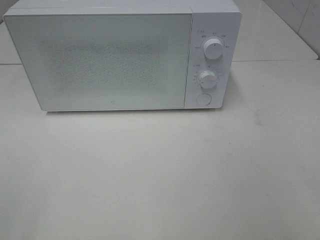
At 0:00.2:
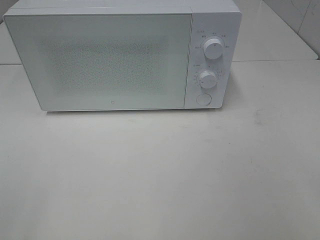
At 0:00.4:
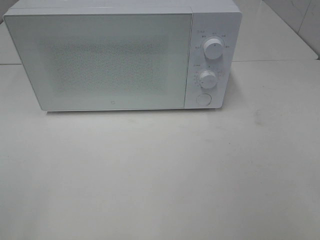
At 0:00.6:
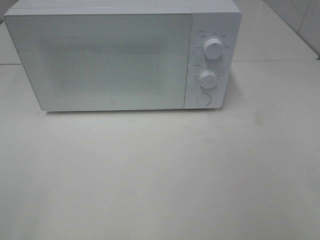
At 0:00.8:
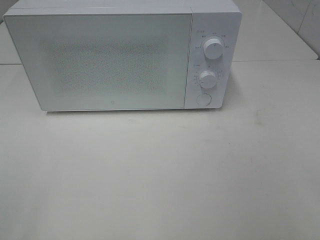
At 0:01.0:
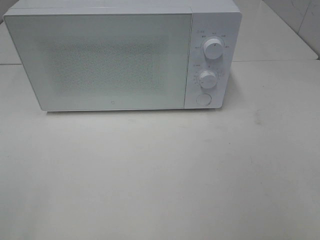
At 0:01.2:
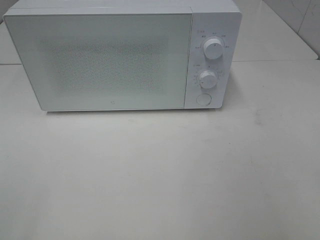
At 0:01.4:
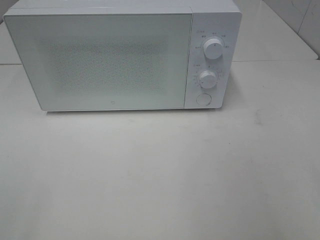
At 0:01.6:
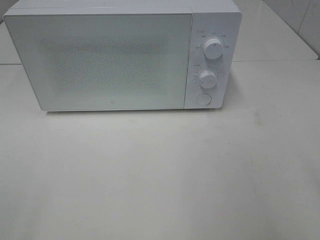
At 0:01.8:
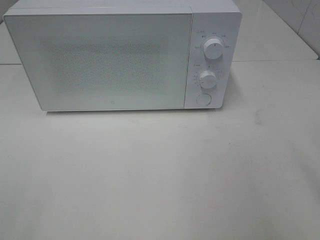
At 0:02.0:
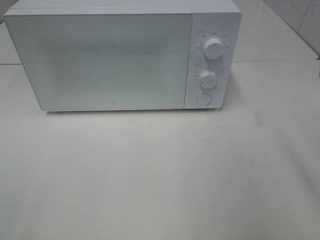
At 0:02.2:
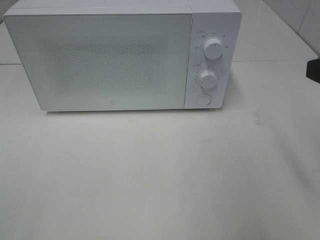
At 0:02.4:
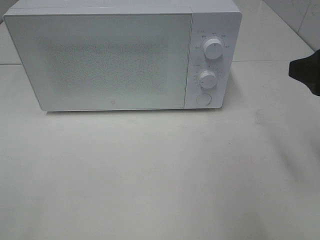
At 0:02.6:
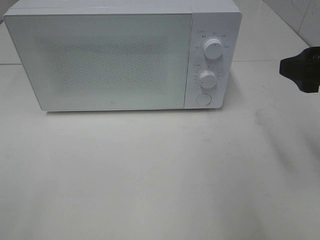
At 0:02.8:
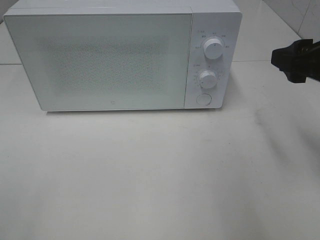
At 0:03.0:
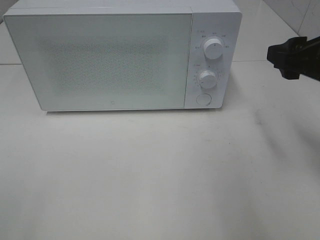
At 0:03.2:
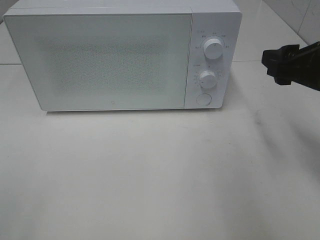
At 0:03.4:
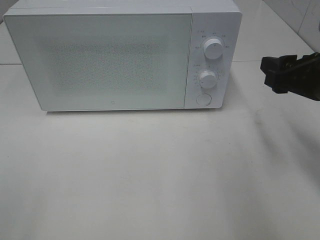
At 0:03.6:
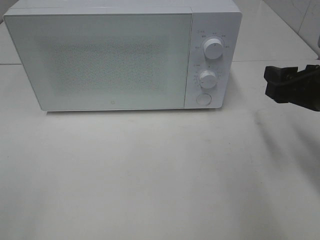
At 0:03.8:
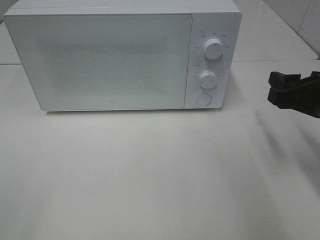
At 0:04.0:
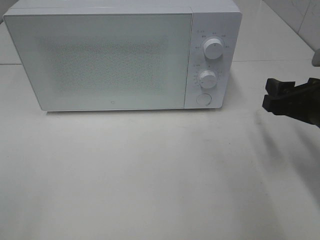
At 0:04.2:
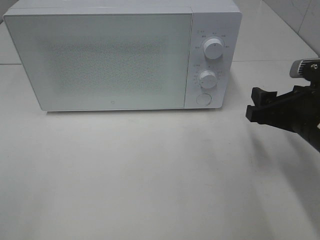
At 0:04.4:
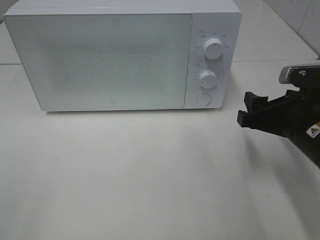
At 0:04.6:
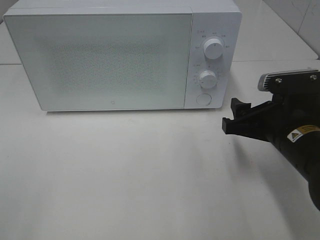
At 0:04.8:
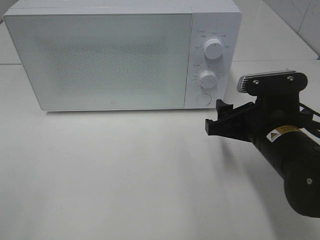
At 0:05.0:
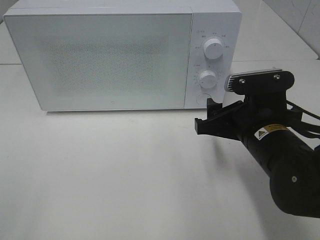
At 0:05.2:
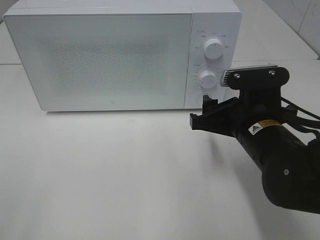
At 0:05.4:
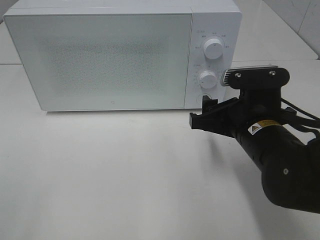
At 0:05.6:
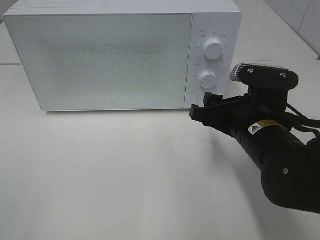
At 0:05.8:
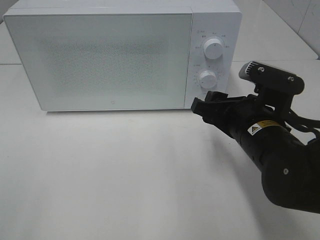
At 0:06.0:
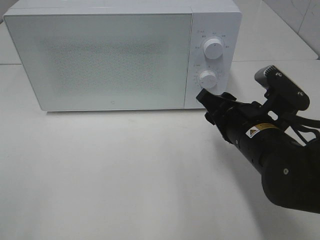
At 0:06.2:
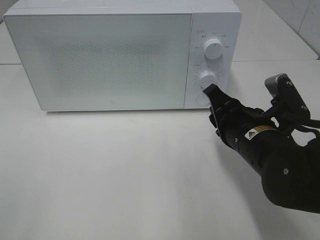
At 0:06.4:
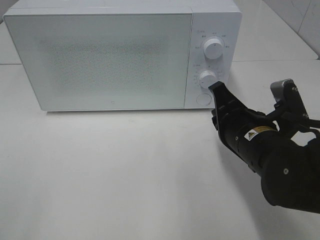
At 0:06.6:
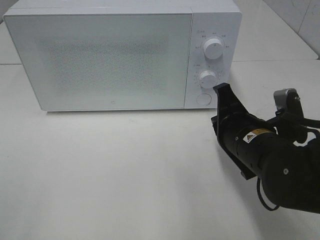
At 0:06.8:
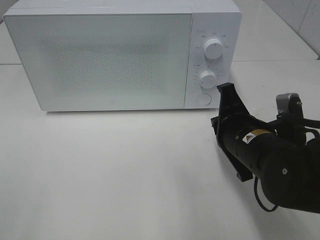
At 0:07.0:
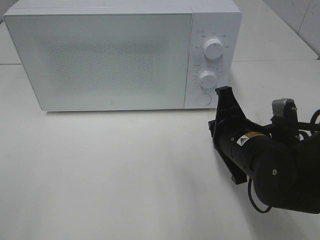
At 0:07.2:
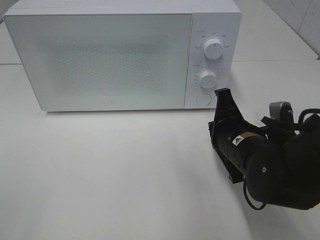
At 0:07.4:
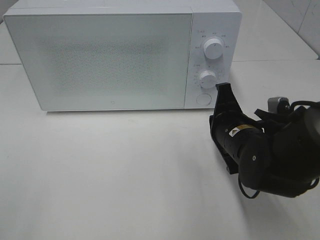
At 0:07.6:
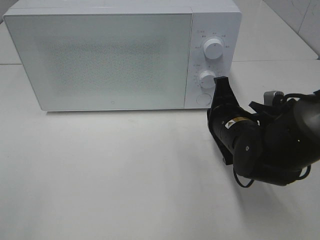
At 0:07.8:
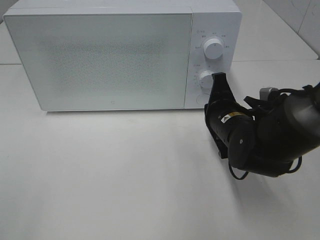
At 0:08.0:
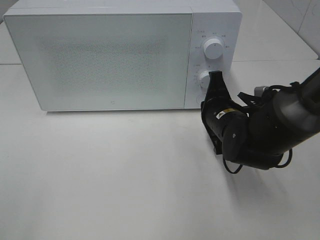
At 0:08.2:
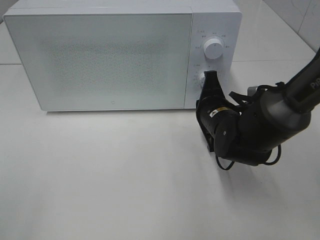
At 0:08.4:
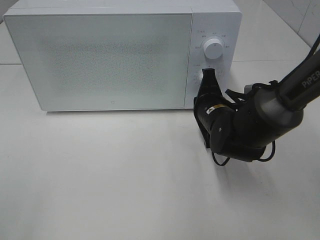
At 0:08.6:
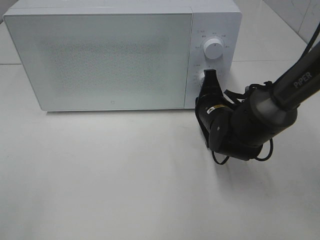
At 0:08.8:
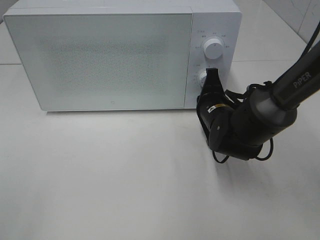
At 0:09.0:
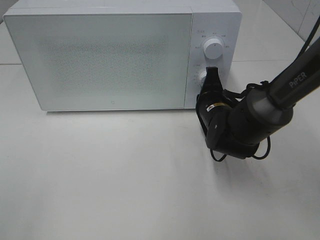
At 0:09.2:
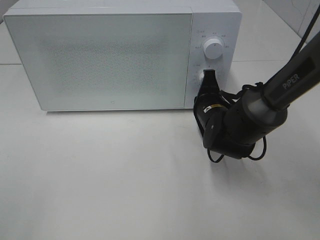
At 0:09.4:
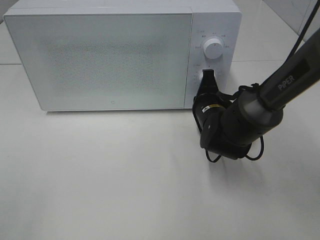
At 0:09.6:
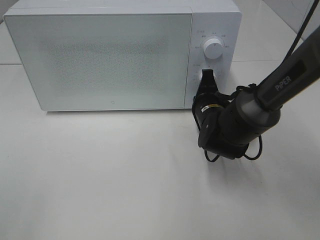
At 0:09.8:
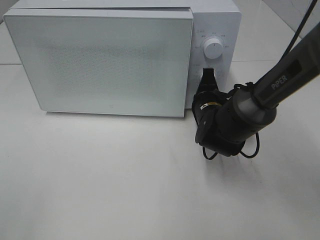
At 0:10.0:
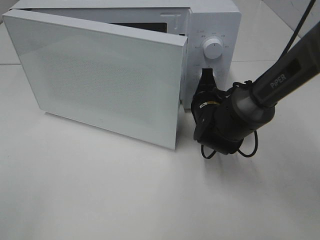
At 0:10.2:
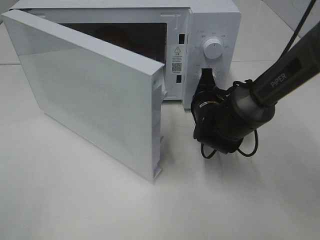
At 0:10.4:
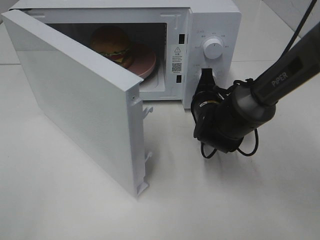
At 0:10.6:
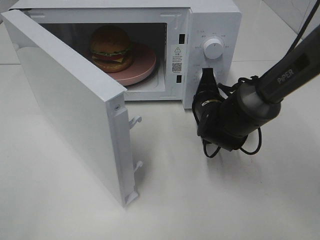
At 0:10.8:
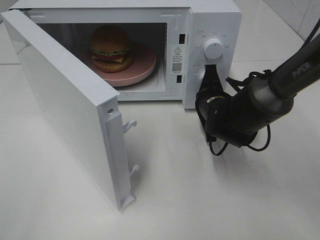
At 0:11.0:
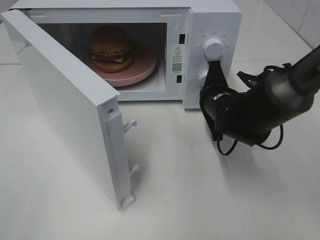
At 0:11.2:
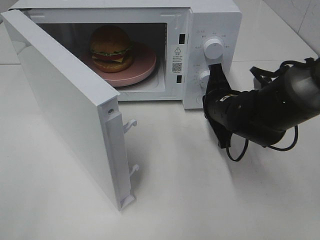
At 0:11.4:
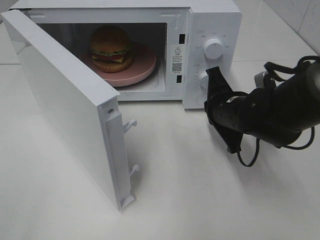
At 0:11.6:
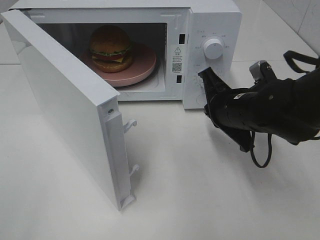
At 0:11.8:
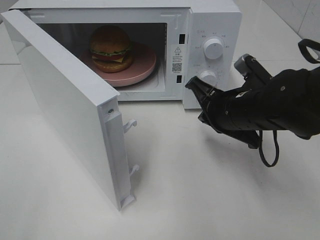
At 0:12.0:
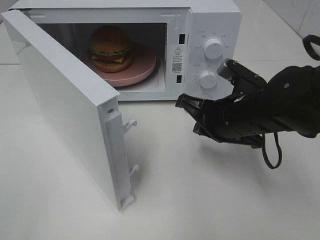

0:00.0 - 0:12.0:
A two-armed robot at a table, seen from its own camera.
Task of the whole recording: Heat the burger.
Step, 0:00.0 - 0:11.0: Right hand: press the switch.
0:01.6 - 0:03.0: The right gripper shifts some 15 cm forward.
0:03.0 - 0:04.4: The right gripper heads downward, covering roughly 10 cm.
0:04.4 - 0:06.0: The right gripper heads to the left, covering approximately 5 cm.
0:06.0 - 0:07.6: The right gripper moves forward, approximately 5 cm, and closes.
0:07.6 - 0:09.0: The right gripper goes approximately 5 cm forward.
0:10.4 - 0:12.0: The right gripper shifts some 10 cm backward and upward.

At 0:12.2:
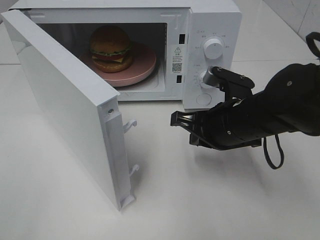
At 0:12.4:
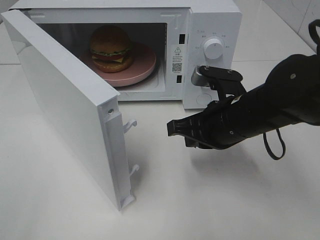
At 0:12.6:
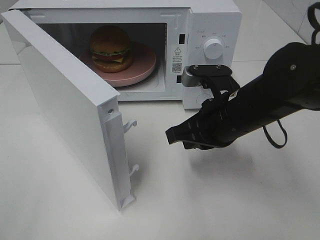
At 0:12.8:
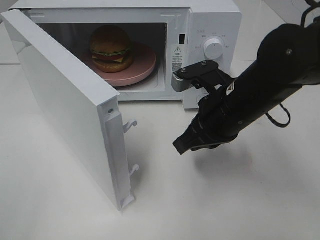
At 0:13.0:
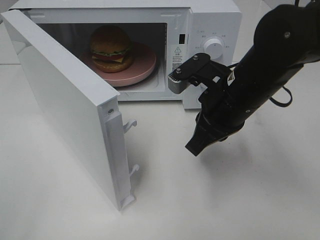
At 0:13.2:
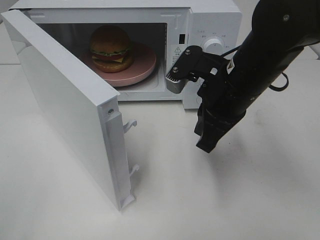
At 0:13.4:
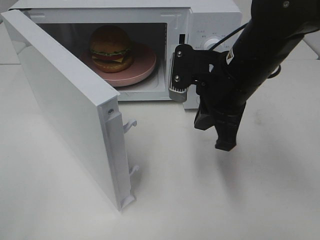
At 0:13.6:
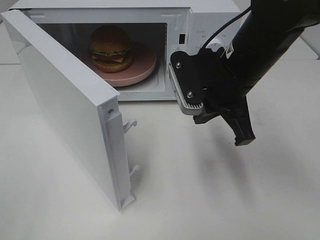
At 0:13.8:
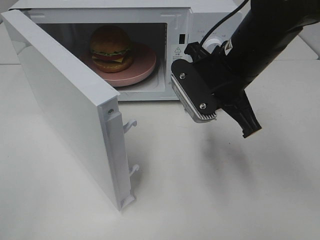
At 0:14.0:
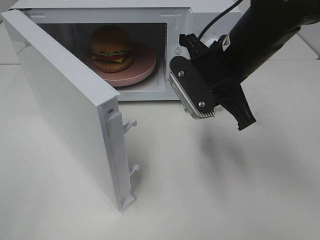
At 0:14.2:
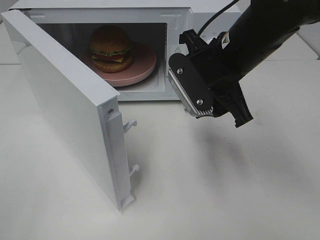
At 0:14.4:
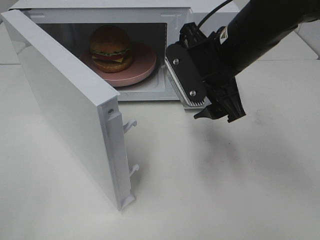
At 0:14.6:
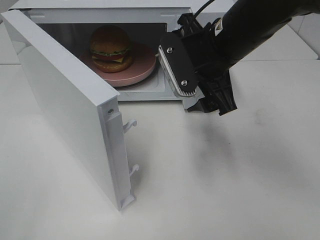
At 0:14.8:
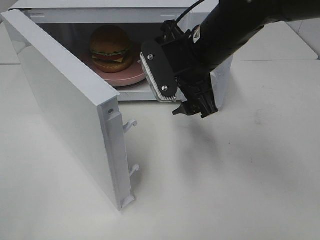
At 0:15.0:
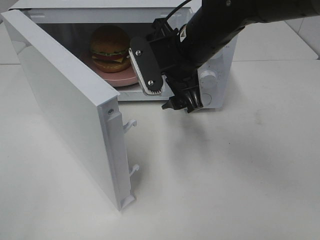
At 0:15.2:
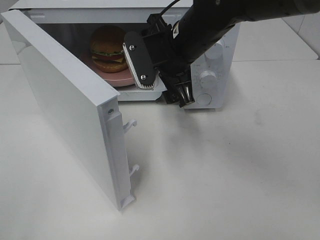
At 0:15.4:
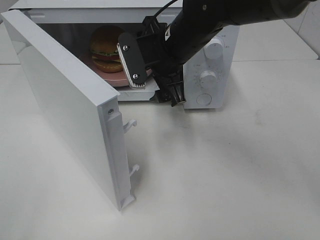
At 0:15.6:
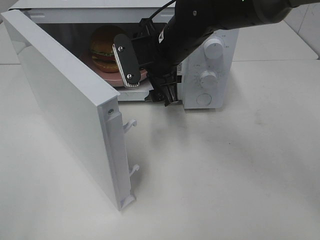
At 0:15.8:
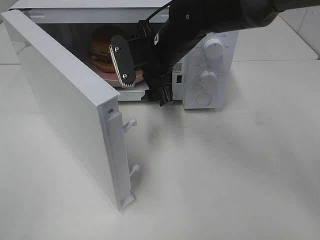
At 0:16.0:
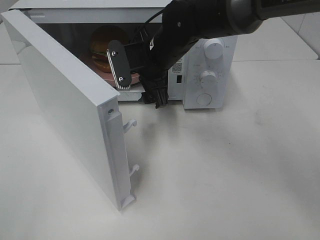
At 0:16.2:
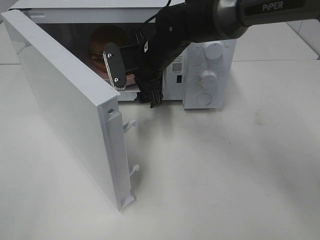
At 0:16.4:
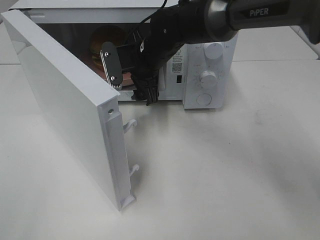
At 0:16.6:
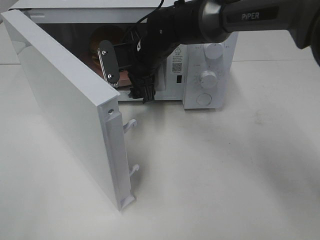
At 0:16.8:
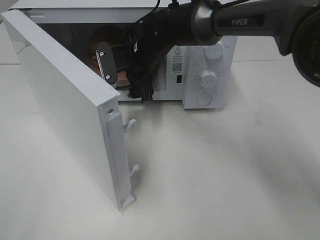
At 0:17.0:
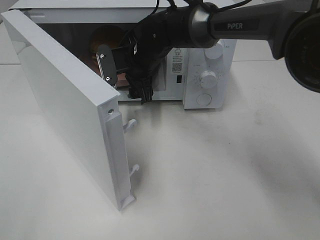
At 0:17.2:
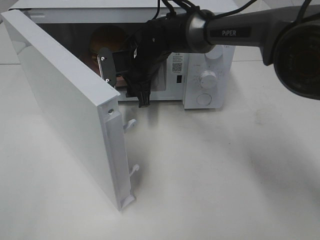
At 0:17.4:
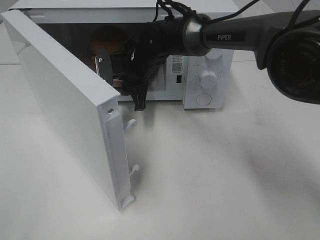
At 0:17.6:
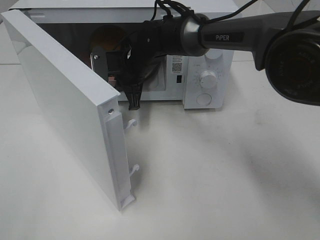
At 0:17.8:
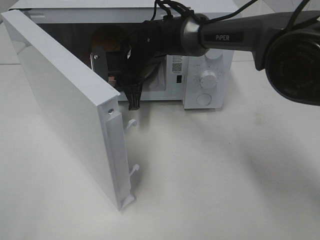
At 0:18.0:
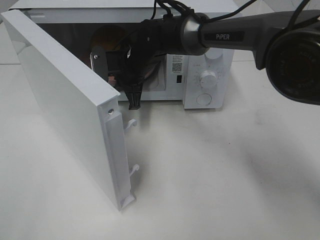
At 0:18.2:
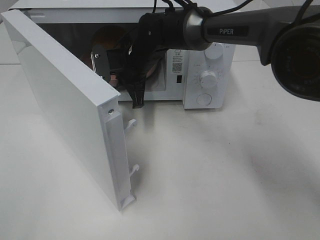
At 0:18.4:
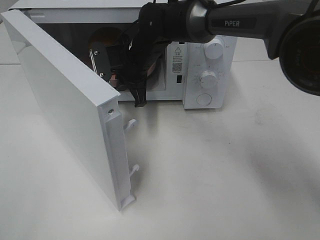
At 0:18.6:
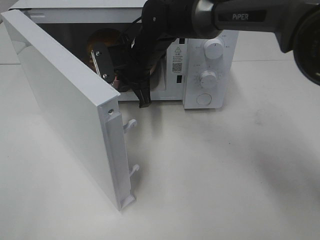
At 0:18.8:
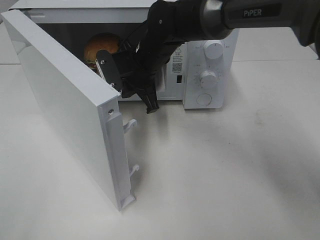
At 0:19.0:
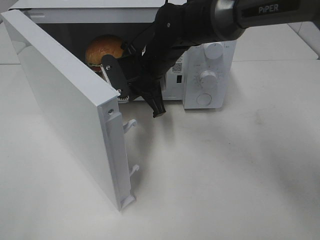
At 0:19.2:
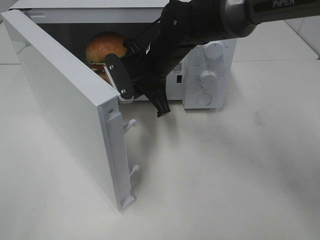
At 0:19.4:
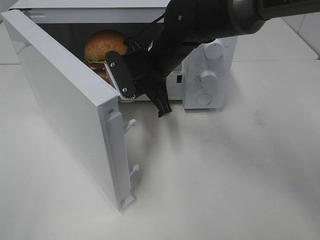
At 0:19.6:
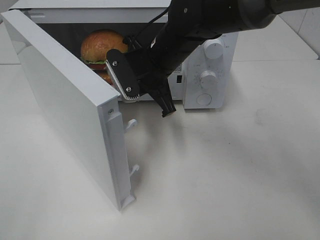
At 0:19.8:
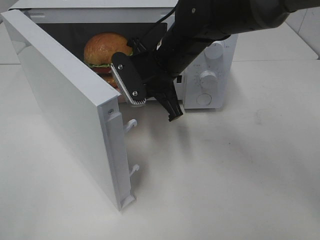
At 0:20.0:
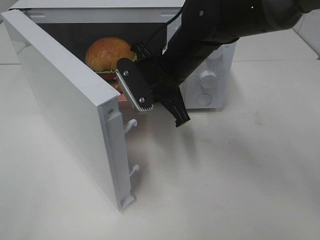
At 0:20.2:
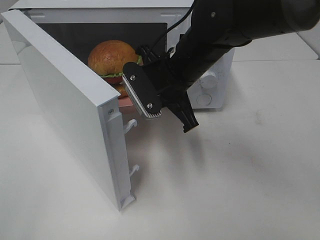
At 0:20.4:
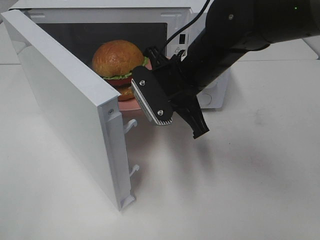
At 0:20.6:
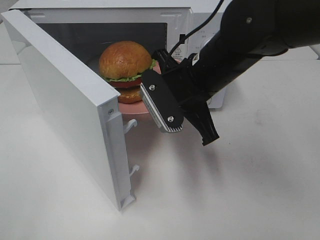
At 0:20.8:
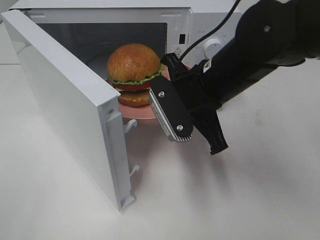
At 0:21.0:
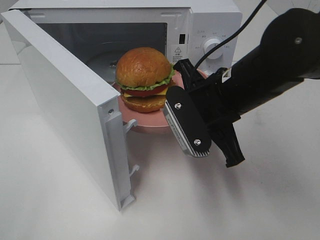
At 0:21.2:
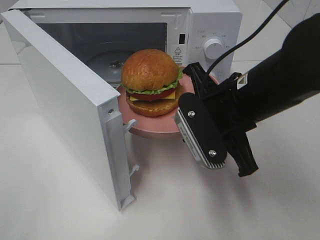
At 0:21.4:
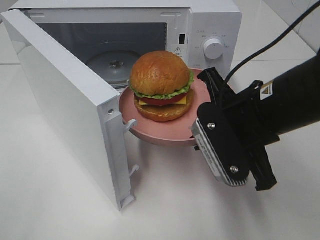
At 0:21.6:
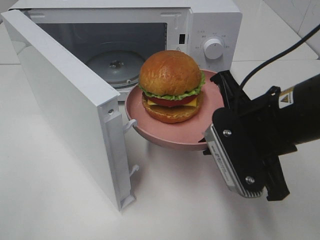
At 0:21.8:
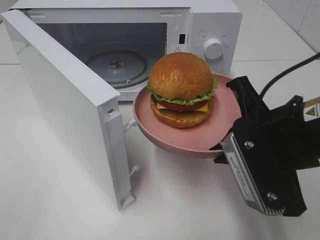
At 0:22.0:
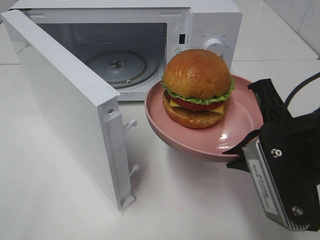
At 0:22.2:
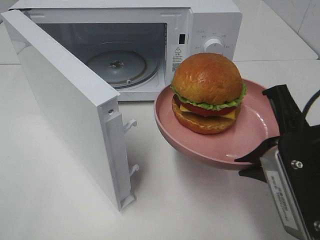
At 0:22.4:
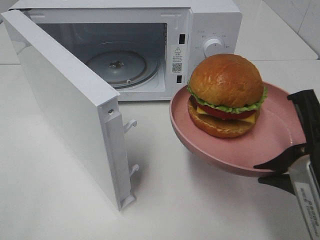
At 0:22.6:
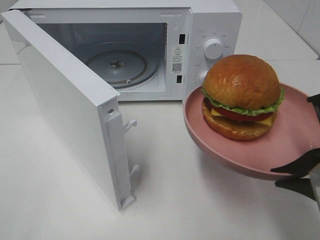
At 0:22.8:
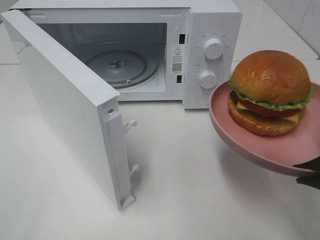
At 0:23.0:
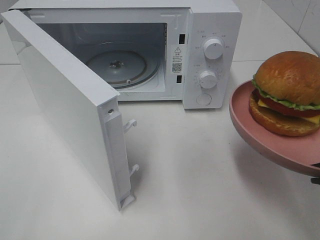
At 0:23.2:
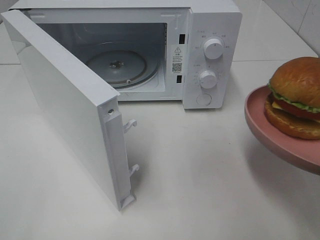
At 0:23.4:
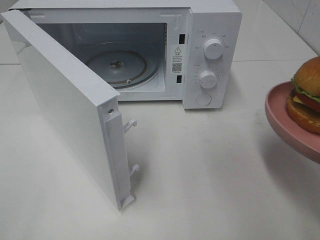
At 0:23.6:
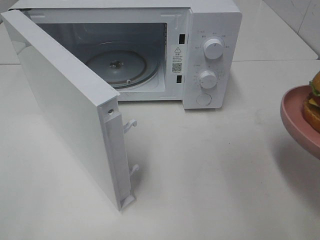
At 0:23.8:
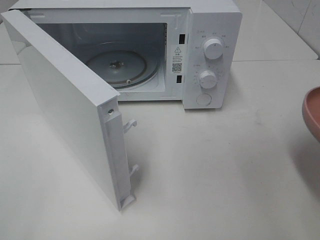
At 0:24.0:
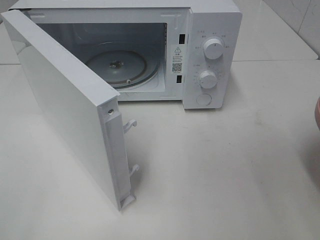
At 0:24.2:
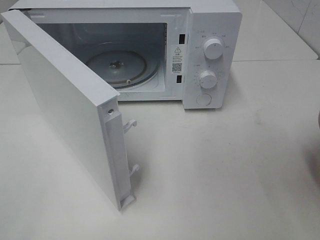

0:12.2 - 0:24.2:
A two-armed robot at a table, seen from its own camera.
Task of the whole recording: Heat the burger.
Step, 0:12.2 - 0:17.6: Right hand: grab the plate with the hamburger.
0:12.2 - 0:13.8: The right gripper is displaced upward by about 10 cm.
0:13.8 - 0:15.2: The right gripper is displaced to the left and forward by roughly 10 cm, and opens up.
0:15.2 - 0:16.6: The right gripper heads forward, downward and to the left, covering about 10 cm.
0:16.6 - 0:18.2: The right gripper closes.
0:18.2 - 0:19.8: The right gripper is displaced backward and to the right by some 10 cm.
0:19.8 - 0:21.2: The right gripper travels backward and to the right by roughly 15 cm.
0:21.2 - 0:22.6: The right gripper shifts some 15 cm backward and to the right.
0:22.6 - 0:24.2: The right gripper changes place by approximately 5 cm.
